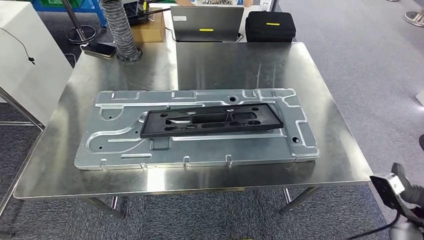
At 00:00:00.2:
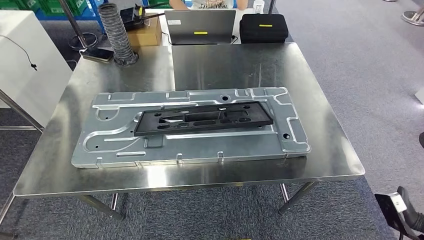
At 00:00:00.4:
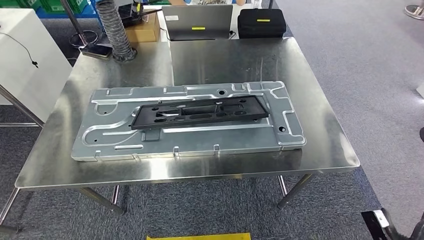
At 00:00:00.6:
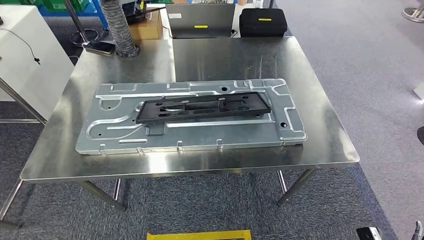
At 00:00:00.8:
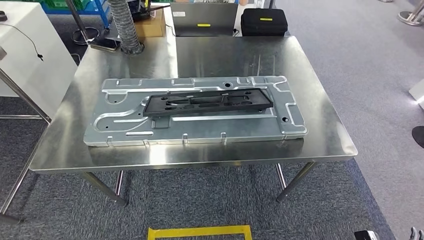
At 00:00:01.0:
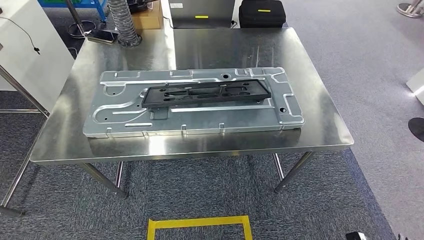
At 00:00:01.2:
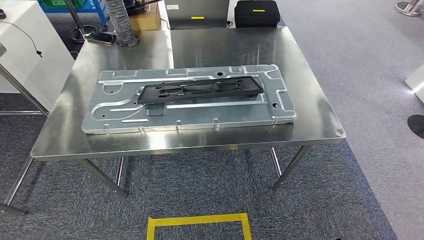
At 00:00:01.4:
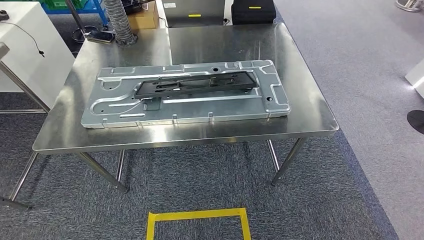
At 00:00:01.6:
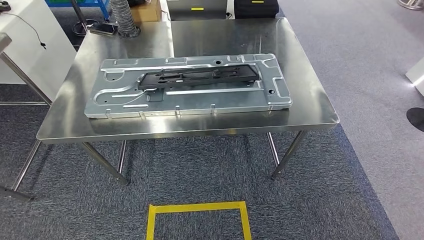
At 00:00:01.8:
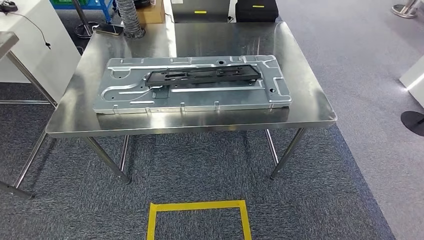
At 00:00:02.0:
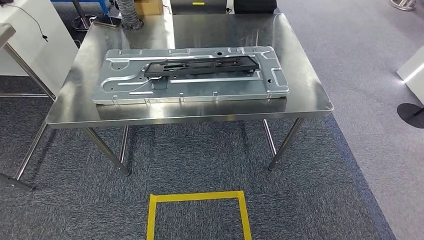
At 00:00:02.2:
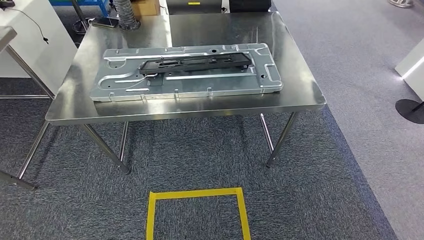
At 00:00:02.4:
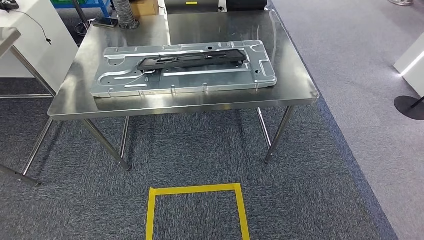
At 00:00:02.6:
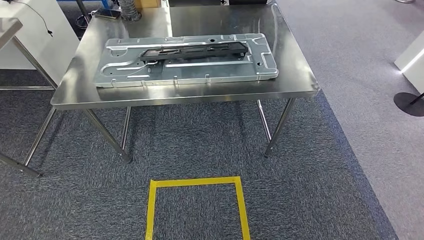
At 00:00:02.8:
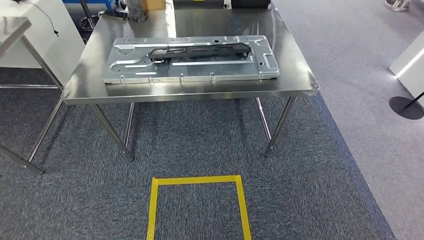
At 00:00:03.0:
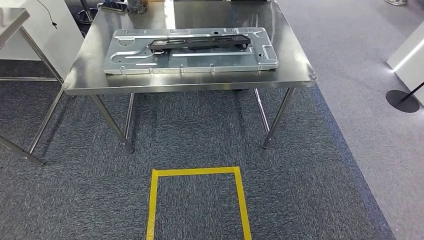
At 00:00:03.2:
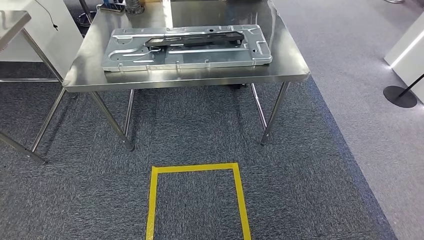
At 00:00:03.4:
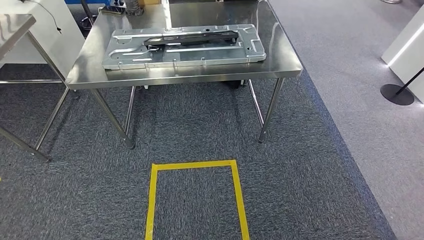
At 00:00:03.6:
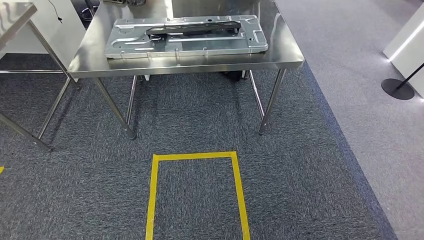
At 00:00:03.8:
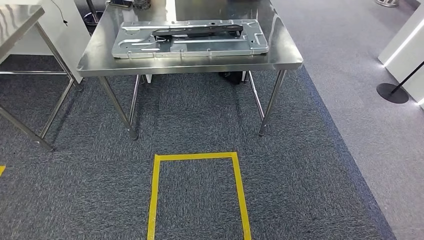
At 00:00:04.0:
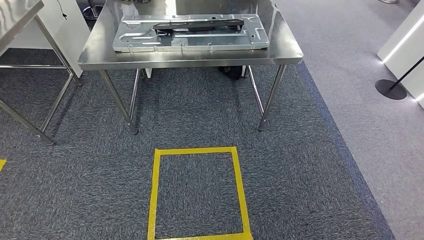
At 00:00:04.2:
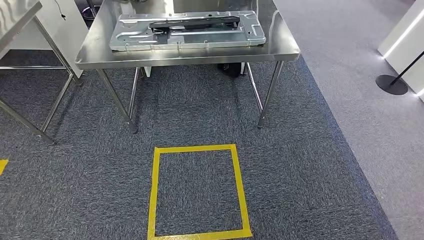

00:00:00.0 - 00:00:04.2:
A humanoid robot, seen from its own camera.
Step, 00:00:00.2 - 00:00:04.0: Return to the initial position at the shelf.
